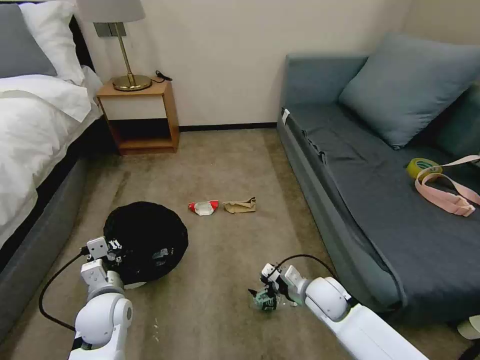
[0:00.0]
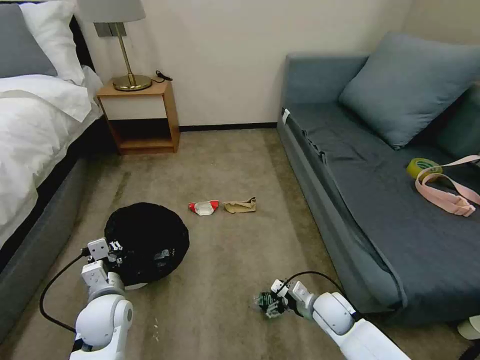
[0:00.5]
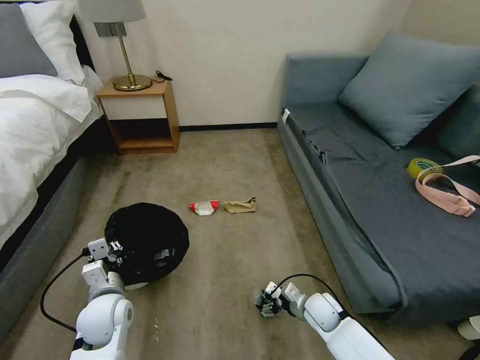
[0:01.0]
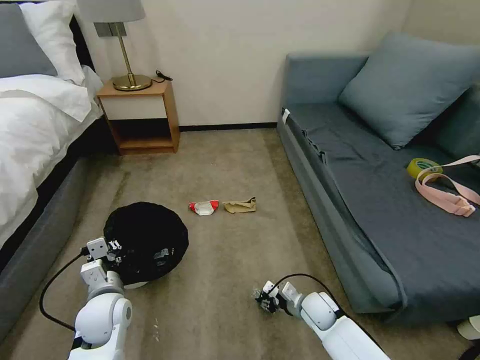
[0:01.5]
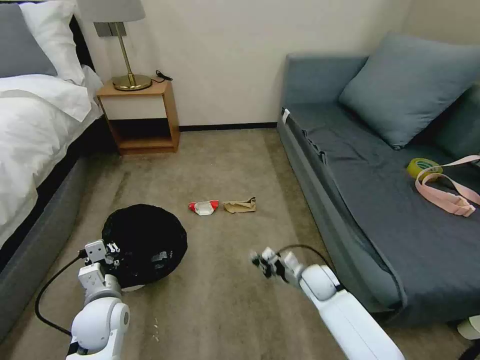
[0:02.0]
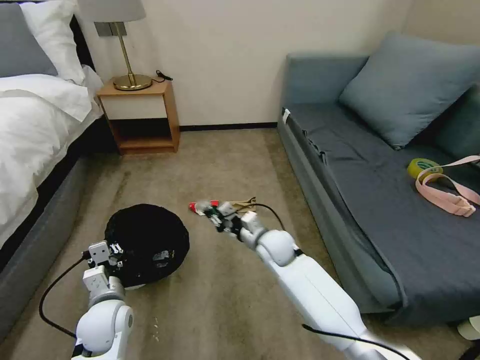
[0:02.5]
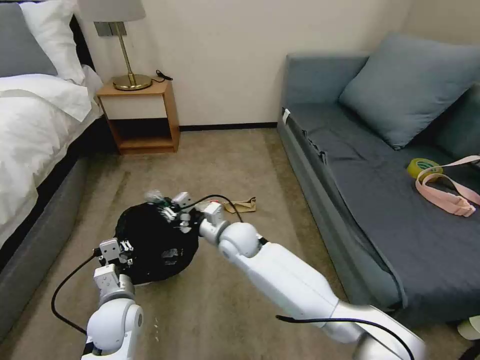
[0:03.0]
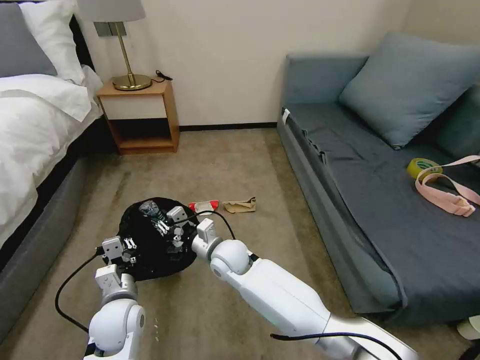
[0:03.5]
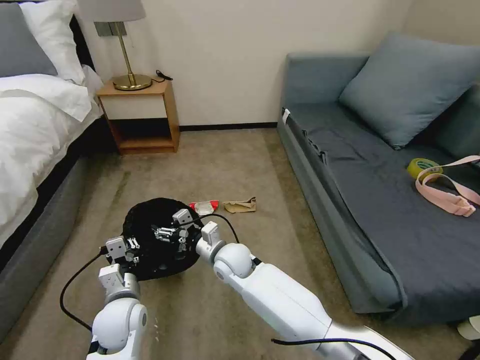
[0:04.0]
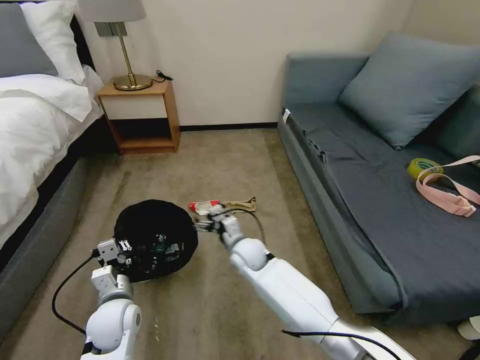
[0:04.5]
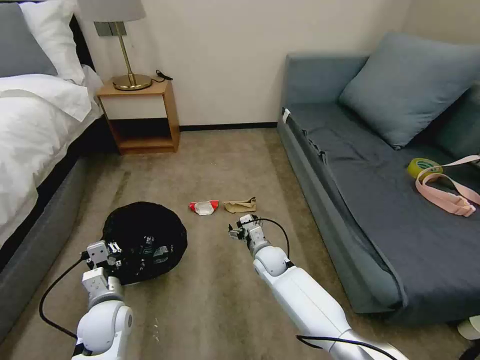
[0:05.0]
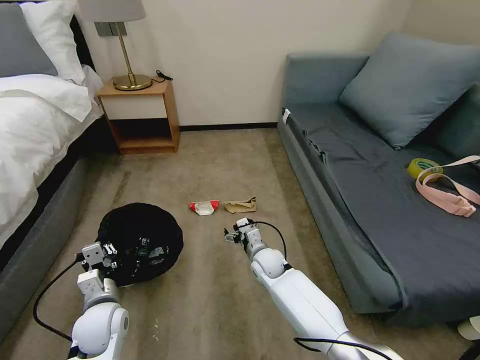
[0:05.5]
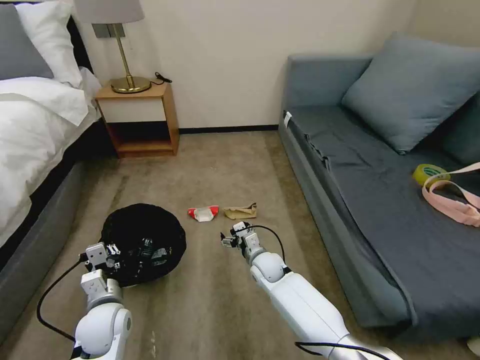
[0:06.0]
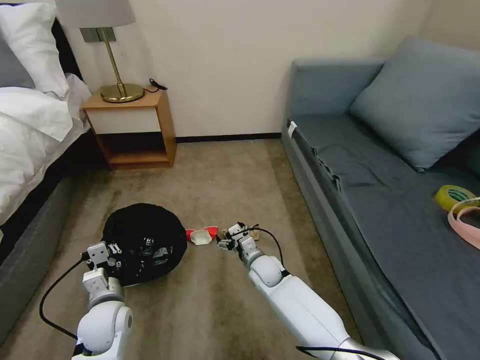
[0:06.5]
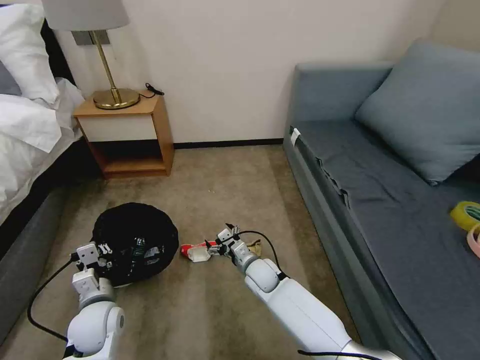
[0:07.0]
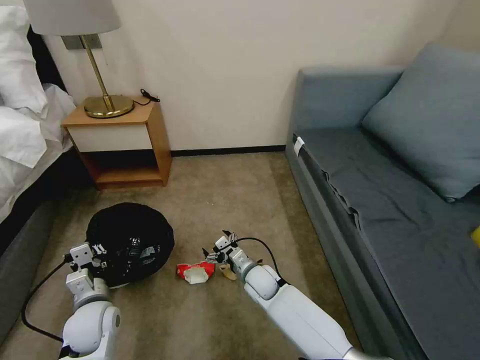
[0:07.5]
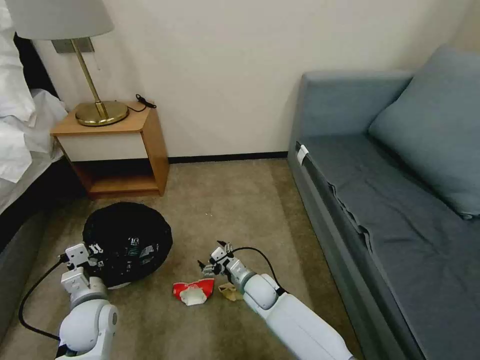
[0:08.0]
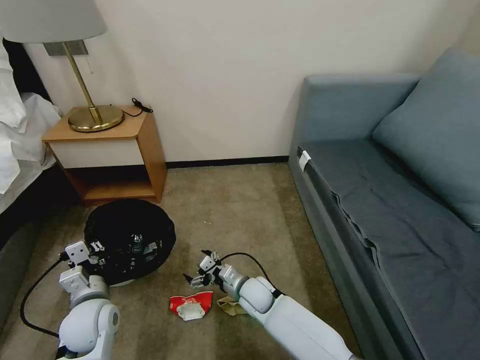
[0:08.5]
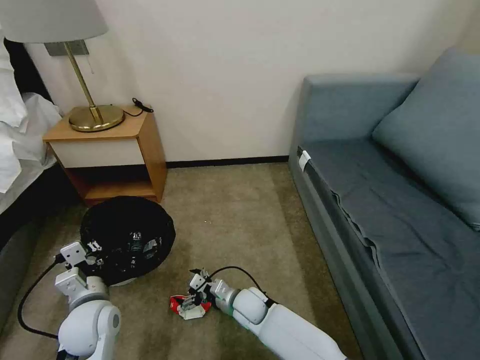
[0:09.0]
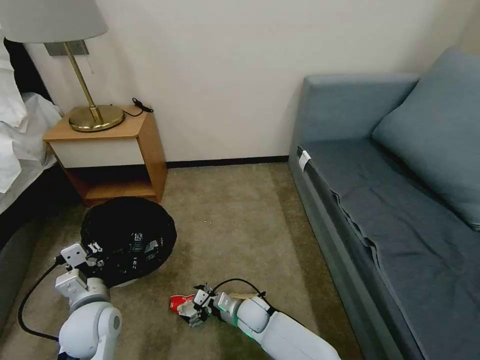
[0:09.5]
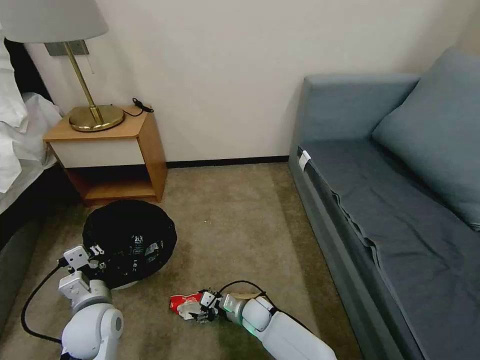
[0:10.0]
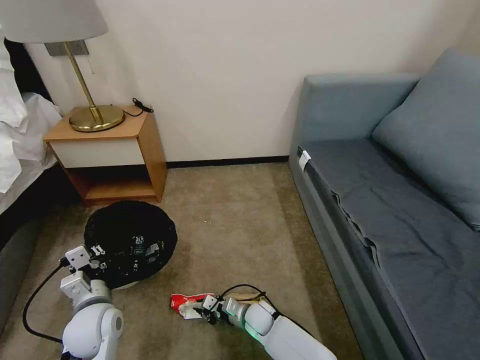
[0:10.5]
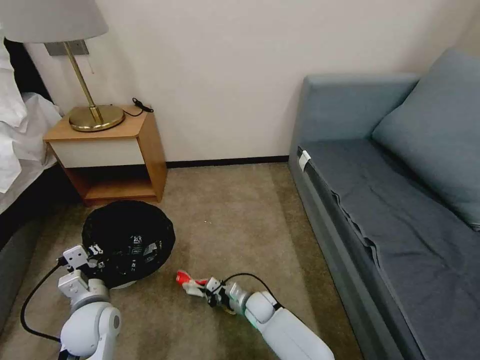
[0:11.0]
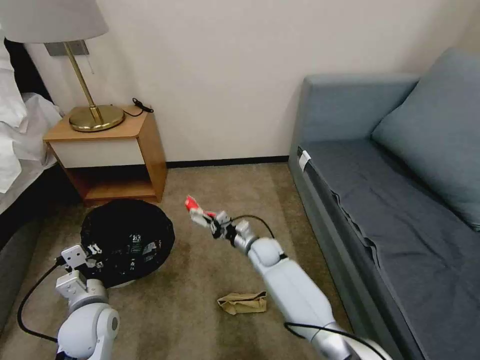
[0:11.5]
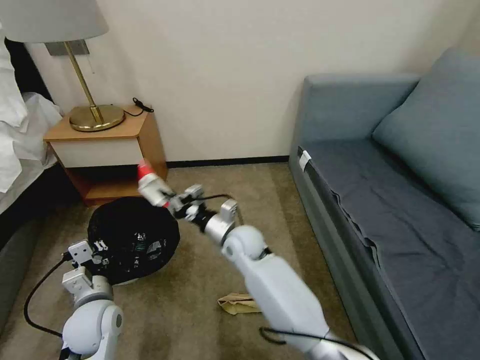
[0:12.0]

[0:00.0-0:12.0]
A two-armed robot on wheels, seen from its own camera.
Task of the whole recording: Pick up the trash bin, then pick up the garbage on the floor and place it into the trash bin.
0:00.0 to 0:02.0: The right gripper heads forward, covering some 5 cm, and closes its fingers.
0:02.0 to 0:04.0: The right gripper is displaced to the left by some 25 cm, and opens.
0:04.0 to 0:06.0: The right gripper goes some 15 cm to the right and downward.
0:06.0 to 0:08.0: The right gripper travels backward by approximately 5 cm.
0:08.0 to 0:10.0: The right gripper heads downward, covering some 10 cm.
0:10.0 to 0:12.0: The right gripper heads upward and forward, covering roughly 25 cm, and closes.

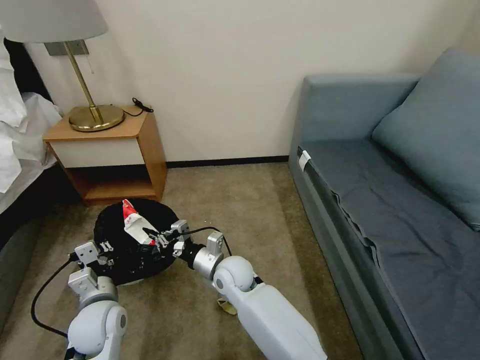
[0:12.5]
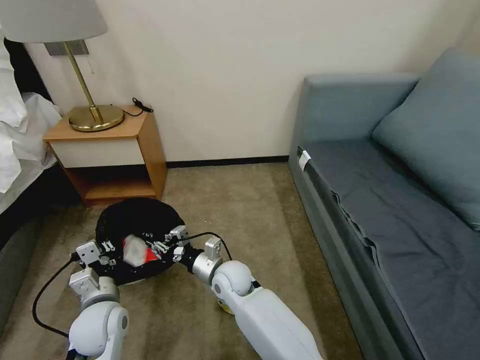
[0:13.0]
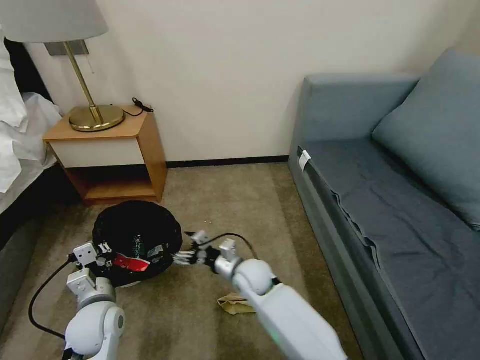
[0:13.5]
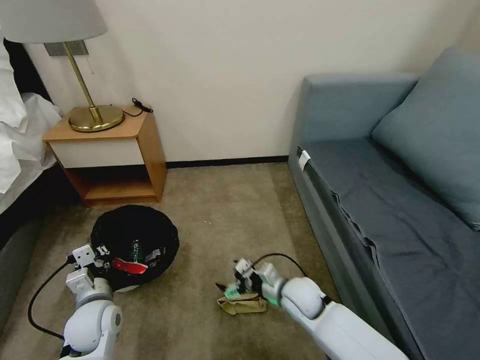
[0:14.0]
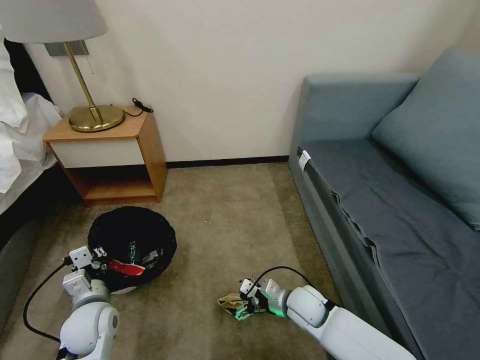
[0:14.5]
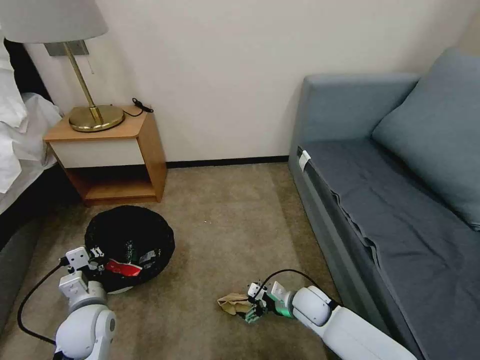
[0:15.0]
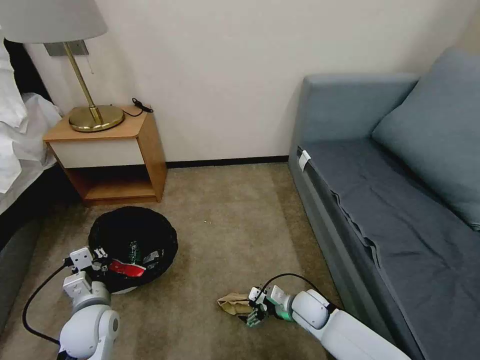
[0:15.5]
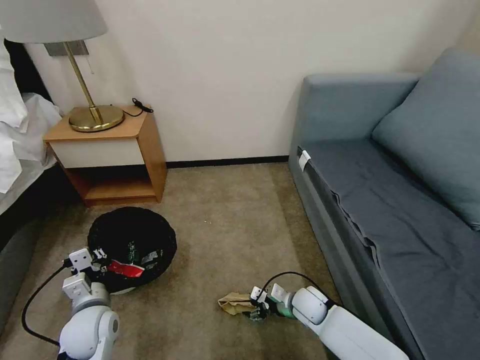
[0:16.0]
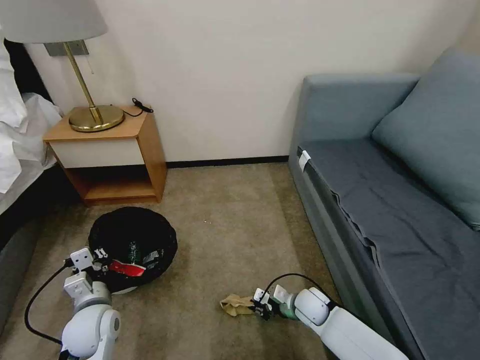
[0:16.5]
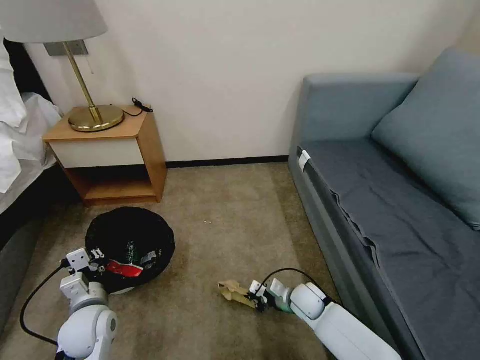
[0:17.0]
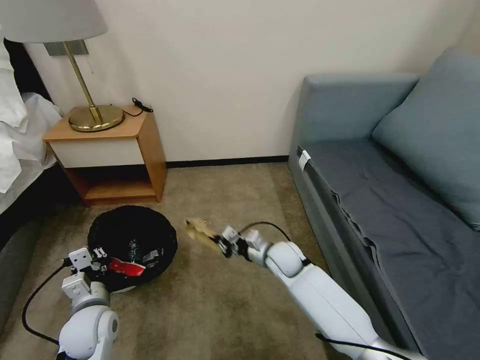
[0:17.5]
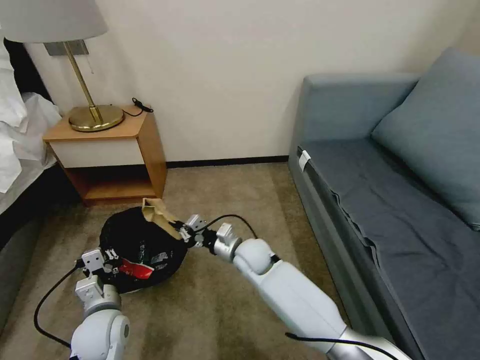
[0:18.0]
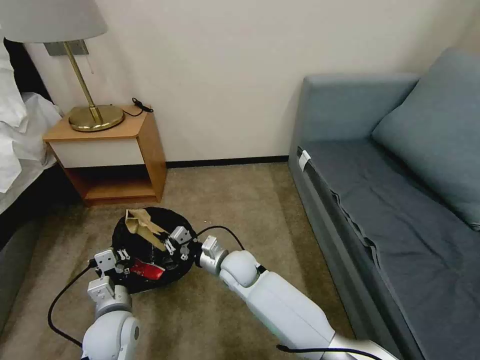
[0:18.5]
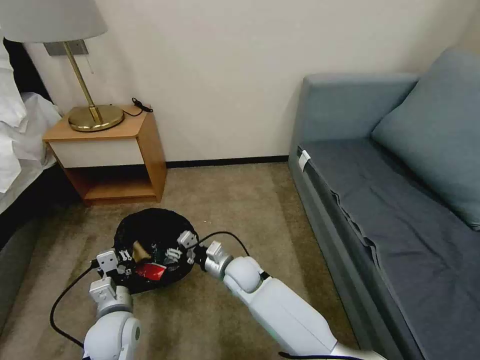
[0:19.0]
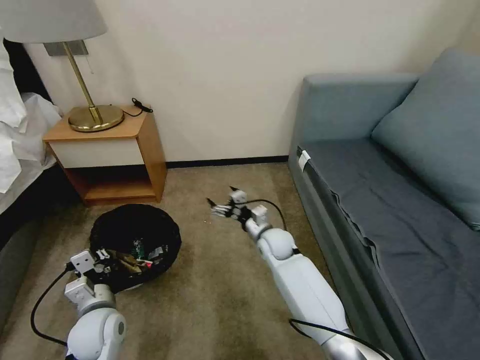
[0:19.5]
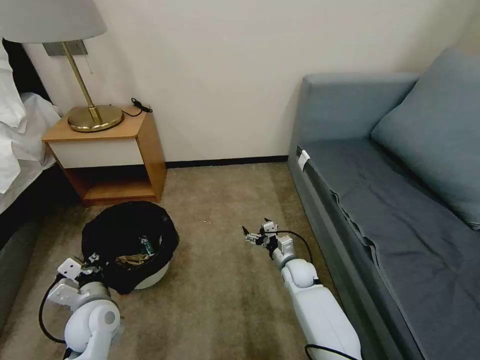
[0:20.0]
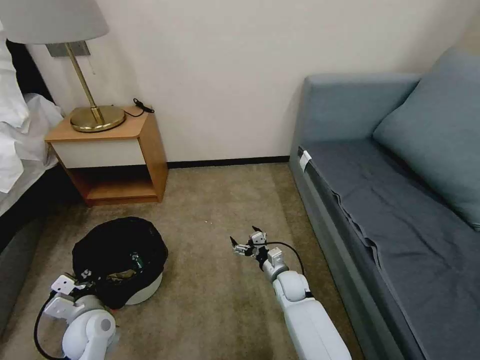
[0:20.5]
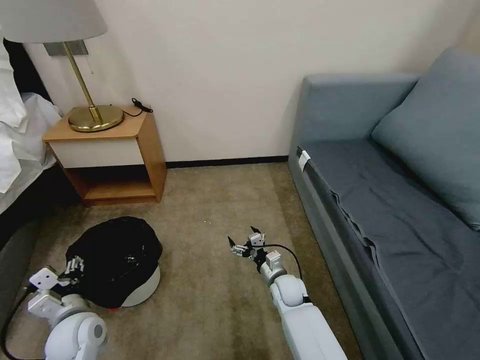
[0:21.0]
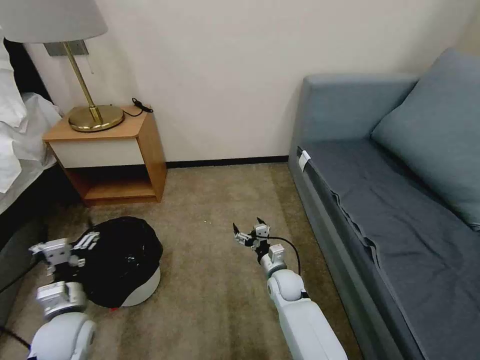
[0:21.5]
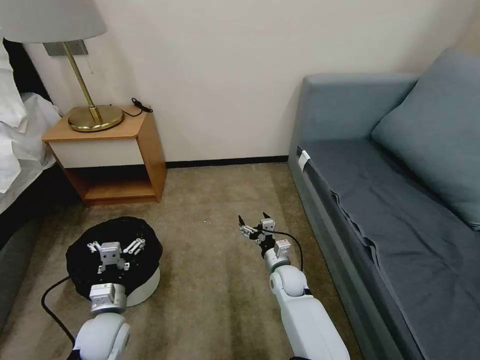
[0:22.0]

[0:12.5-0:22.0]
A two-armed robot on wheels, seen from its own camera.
Task of the whole recording: Pick up the trash bin, then pick up the garbage on the floor and place it into the trash bin.
0:12.5 to 0:14.5: The right gripper goes roughly 20 cm to the right, and opens.
0:14.5 to 0:16.5: The right gripper moves downward, some 5 cm, and closes.
0:16.5 to 0:18.0: The right gripper travels to the left, upward and forward by about 25 cm.
0:18.0 to 0:20.0: The right gripper goes some 20 cm to the right and downward, and opens its fingers.
0:20.0 to 0:22.0: The right gripper shifts by some 5 cm. Meanwhile the left gripper opens up.

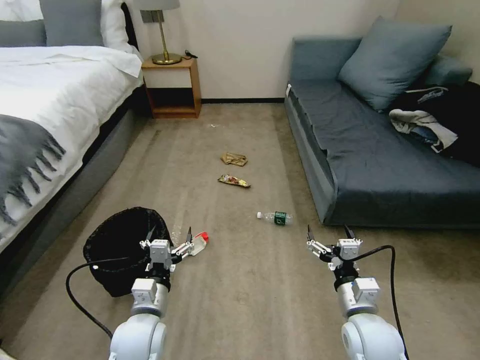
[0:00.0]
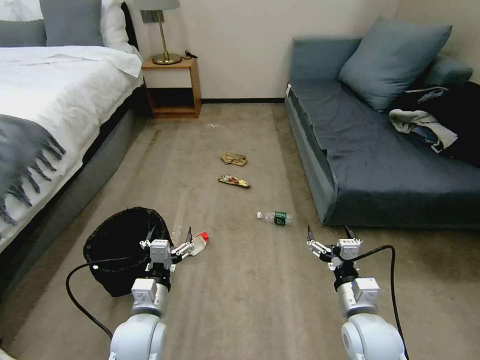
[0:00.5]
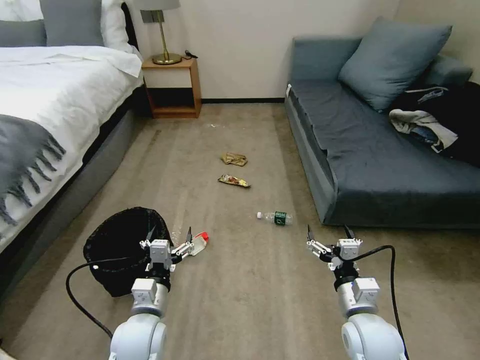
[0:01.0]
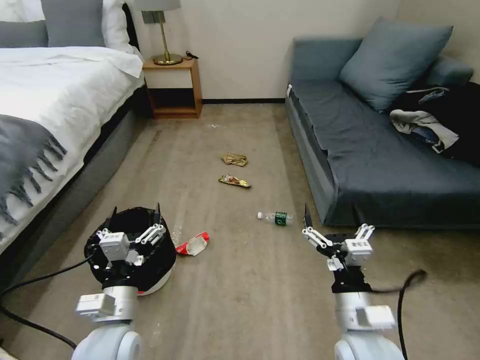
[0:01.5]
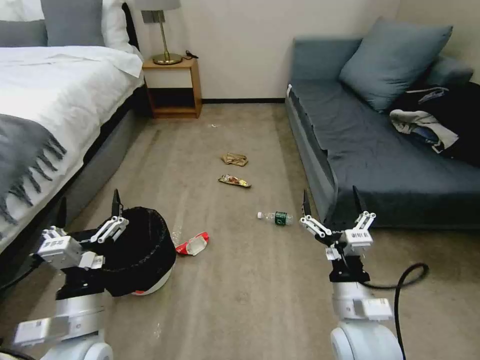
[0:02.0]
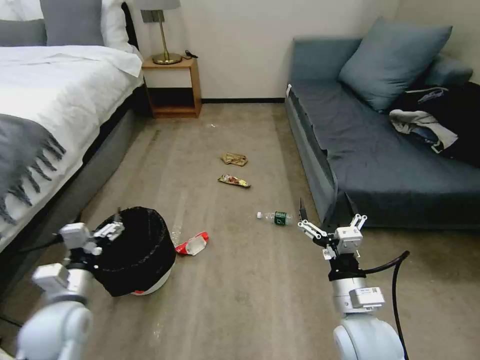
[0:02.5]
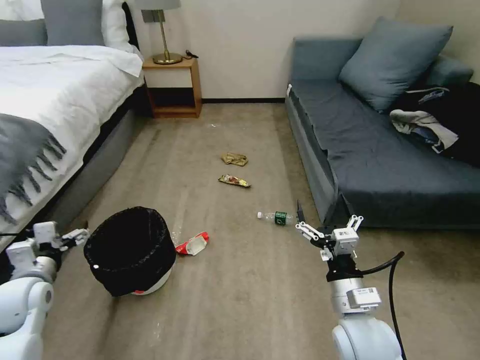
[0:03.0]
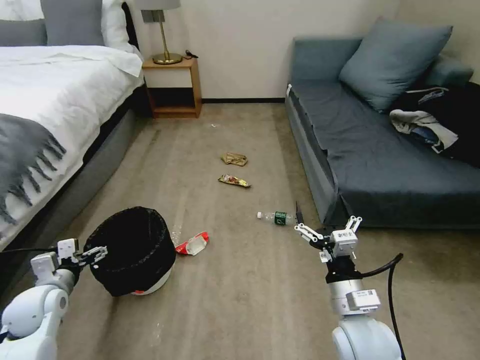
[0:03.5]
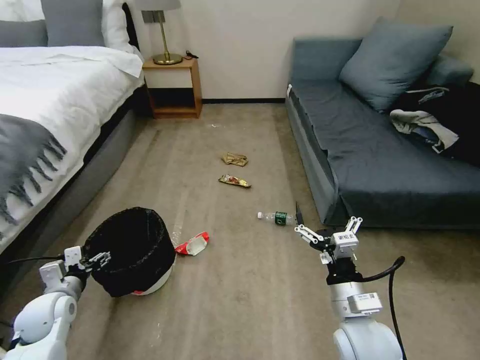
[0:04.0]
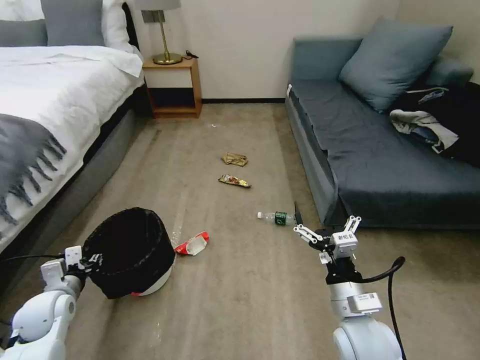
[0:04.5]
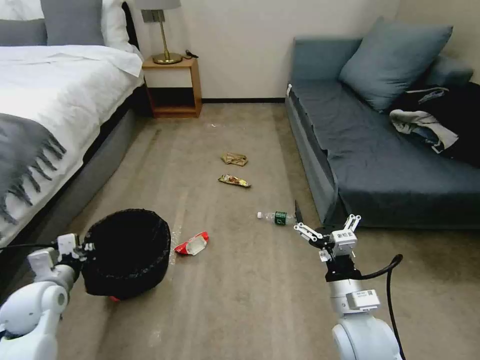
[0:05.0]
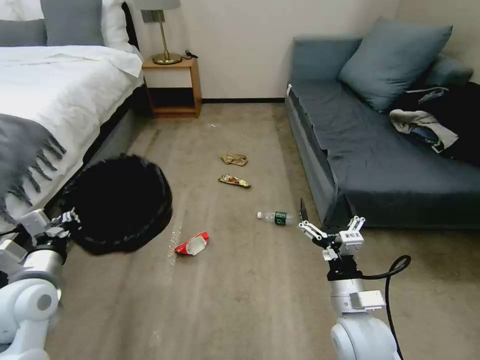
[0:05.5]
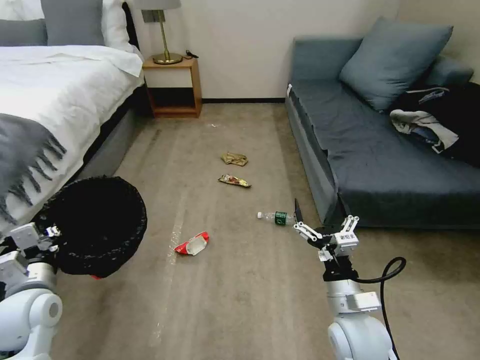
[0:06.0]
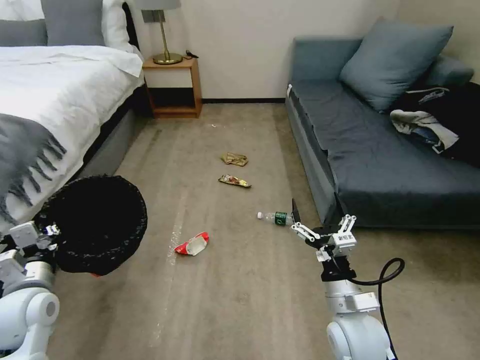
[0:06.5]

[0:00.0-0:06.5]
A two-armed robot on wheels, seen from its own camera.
Task of the whole recording: Pick up the trash bin, then pick up the garbage on the floor and place it into the trash bin.
0:02.0 to 0:04.5: The left gripper goes roughly 25 cm to the left, downward and forward, and closes up.
0:04.5 to 0:06.5: The left gripper heads upward, covering approximately 10 cm.
